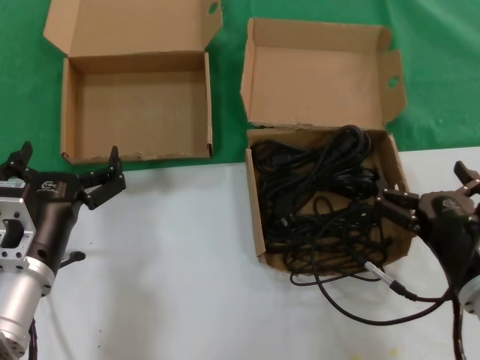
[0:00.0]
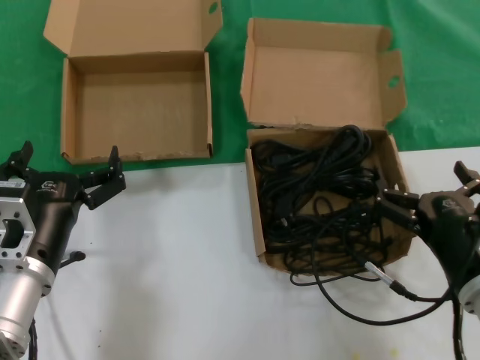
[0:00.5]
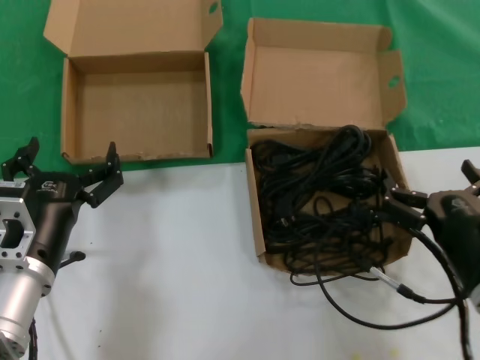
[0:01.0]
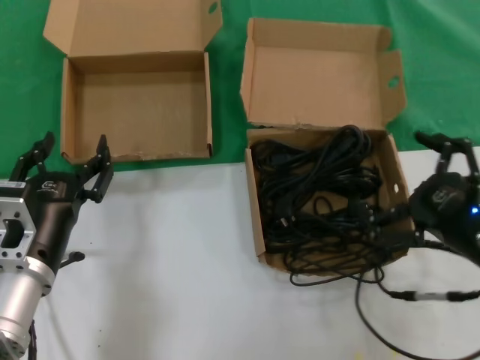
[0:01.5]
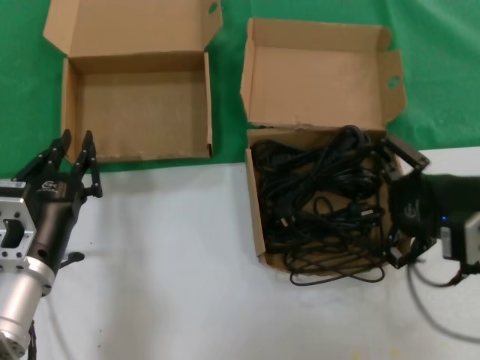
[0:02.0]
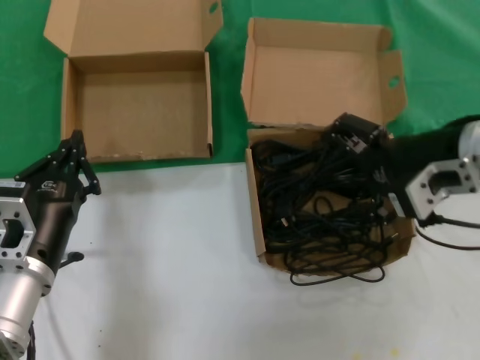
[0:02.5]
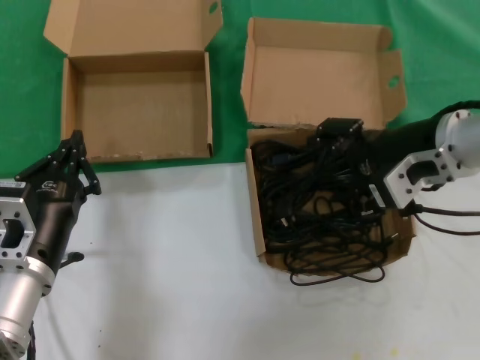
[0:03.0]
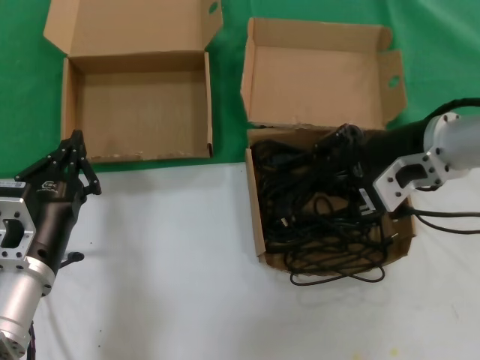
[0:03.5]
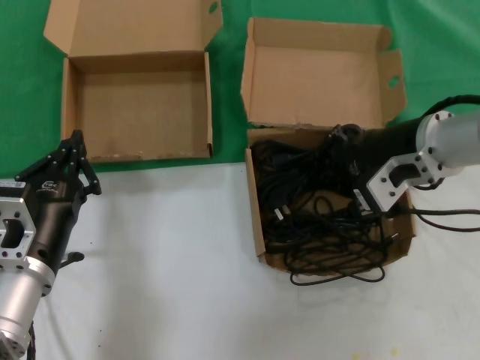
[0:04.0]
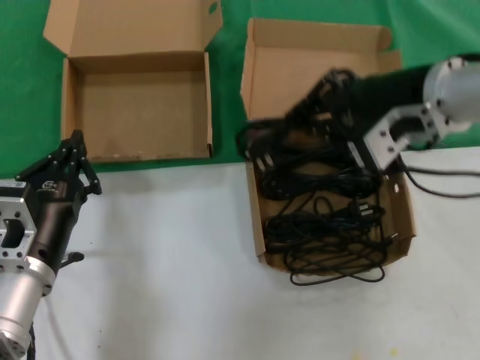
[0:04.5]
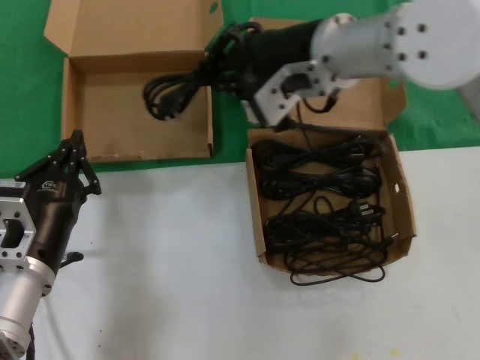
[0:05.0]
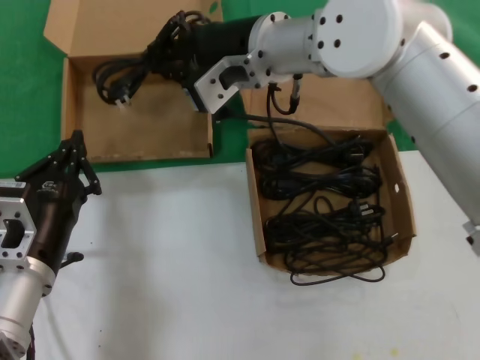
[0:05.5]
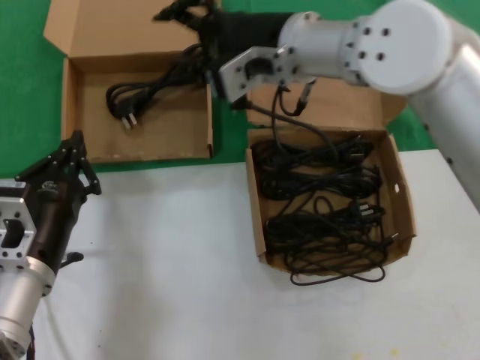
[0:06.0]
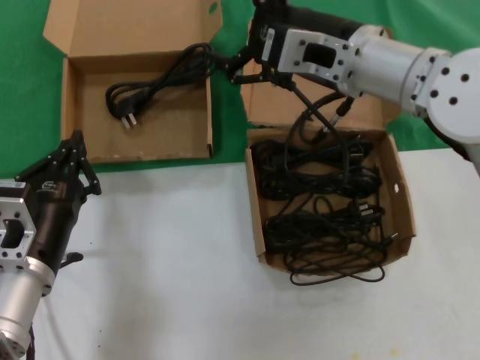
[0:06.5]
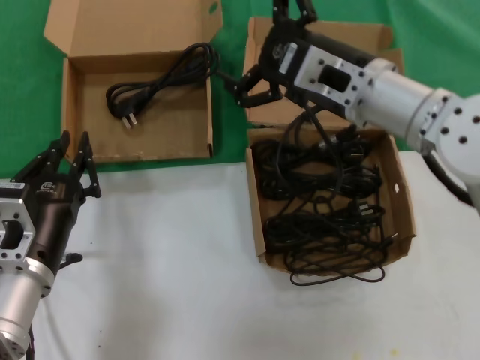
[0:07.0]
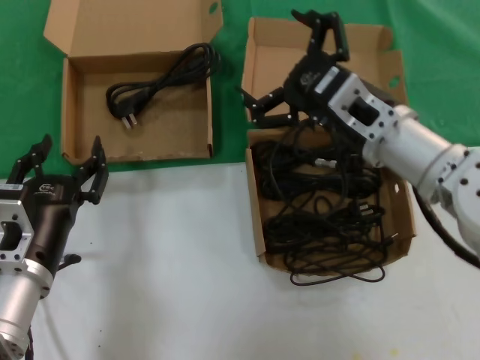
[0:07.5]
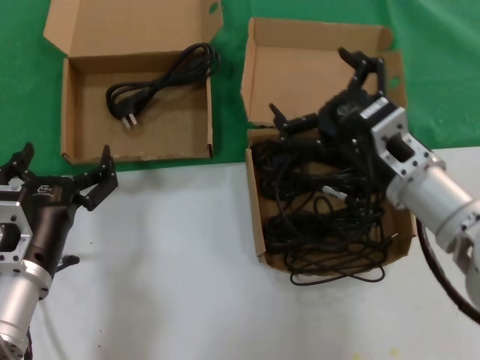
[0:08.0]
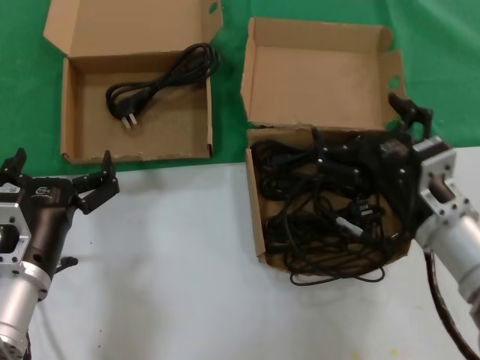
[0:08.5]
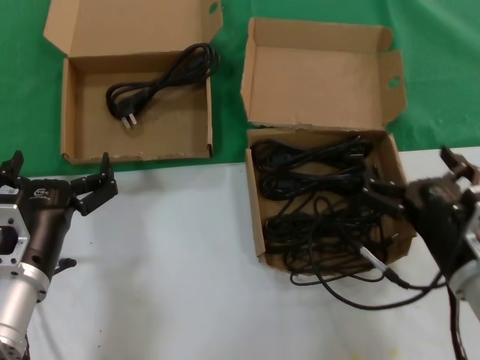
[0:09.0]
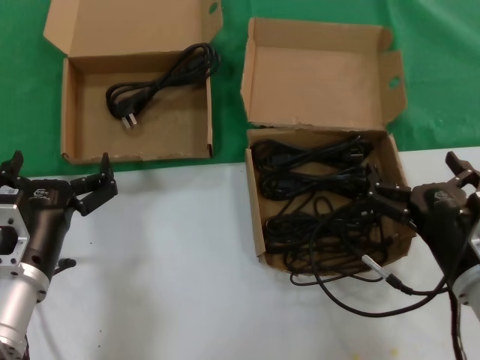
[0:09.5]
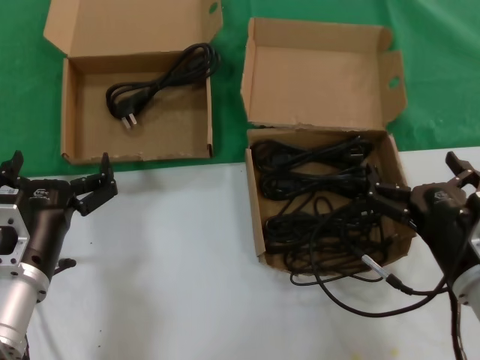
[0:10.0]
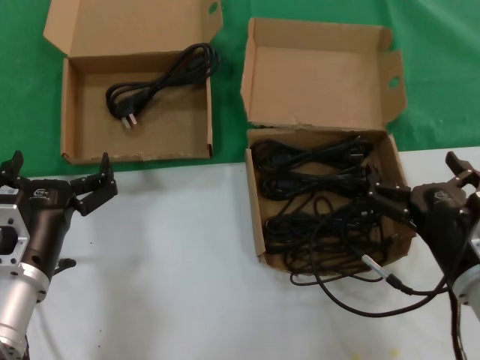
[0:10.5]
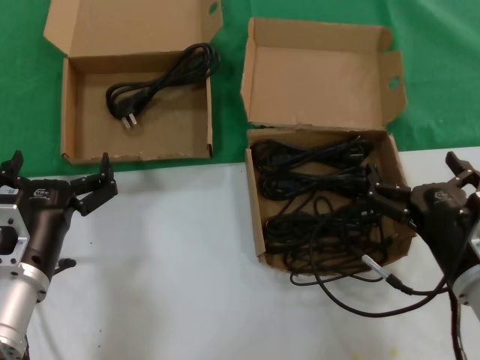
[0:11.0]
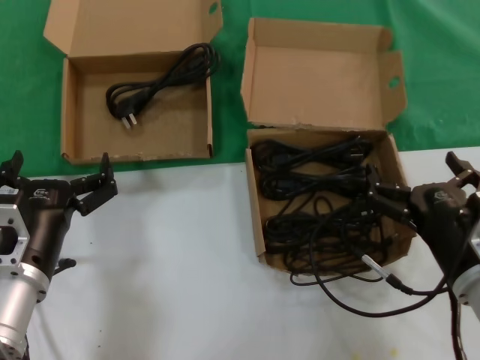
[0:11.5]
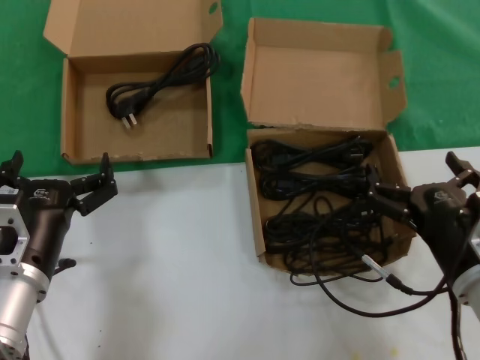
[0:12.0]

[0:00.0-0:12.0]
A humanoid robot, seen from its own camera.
Task of the whole recording: take the parts from the box containing them and put them into an empty box.
Step, 0:00.0 to 0:03.5: Grasp the data cable.
Step, 0:04.0 to 0:05.5: Place the data cable in the another box.
0:00.0 to 0:02.0: The right hand is displaced upward by roughly 15 cm.
0:02.0 to 0:04.0: The right hand shifts roughly 15 cm forward and to the left.
0:04.0 to 0:06.0: The right hand shifts about 15 cm to the left and upward.
0:06.0 to 0:08.0: The right hand goes some 20 cm downward, to the right and backward.
0:08.0 to 0:10.0: The right hand travels backward, downward and to the right by approximately 15 cm.
0:10.0 to 0:12.0: Both hands stay put.

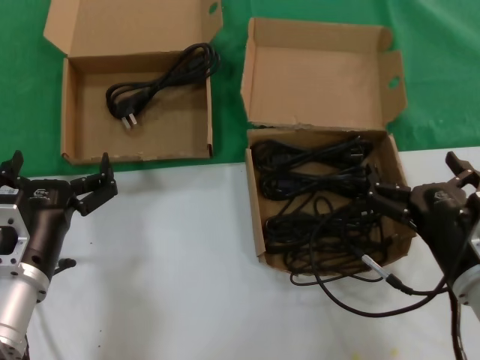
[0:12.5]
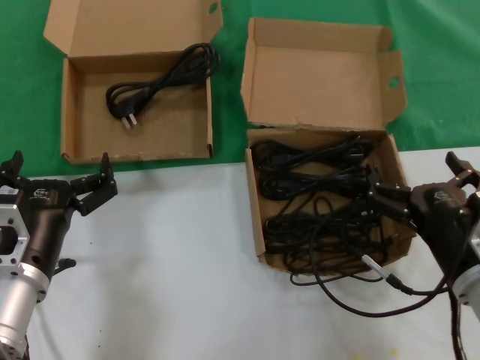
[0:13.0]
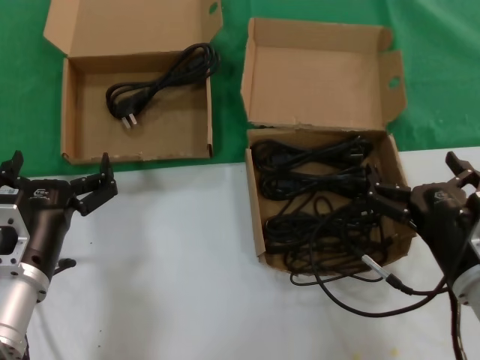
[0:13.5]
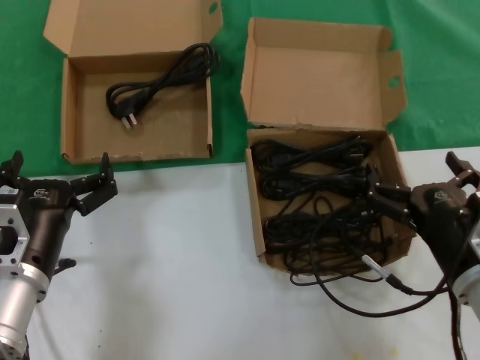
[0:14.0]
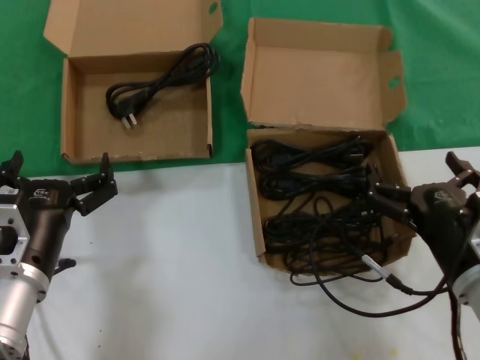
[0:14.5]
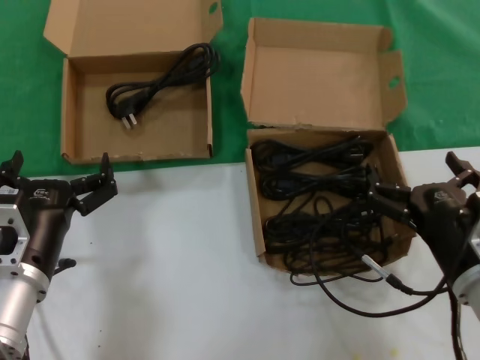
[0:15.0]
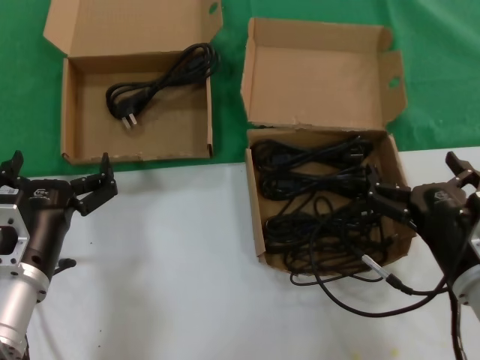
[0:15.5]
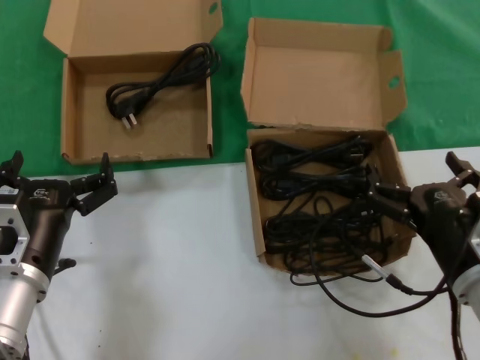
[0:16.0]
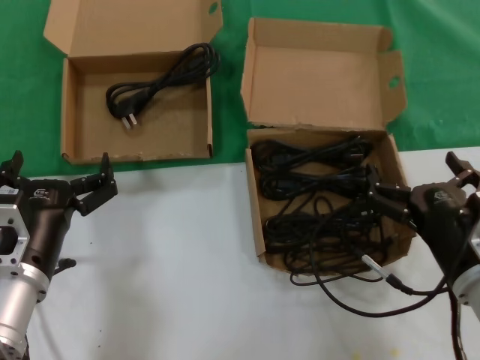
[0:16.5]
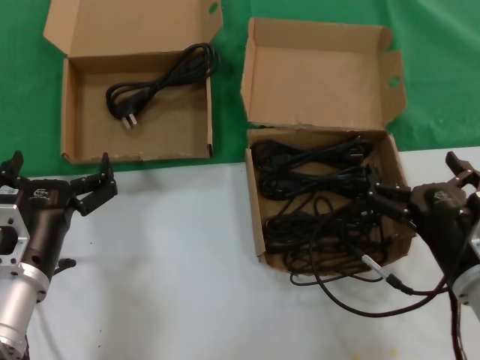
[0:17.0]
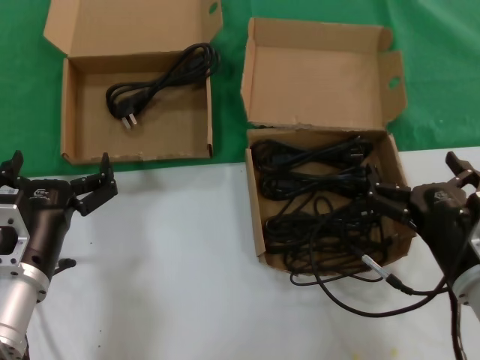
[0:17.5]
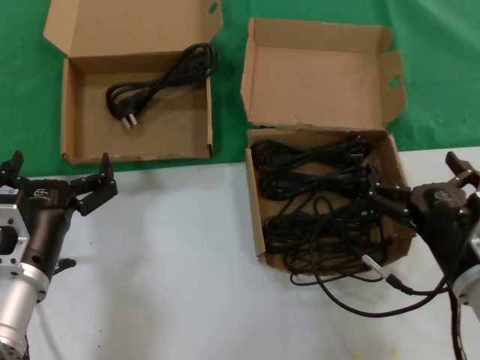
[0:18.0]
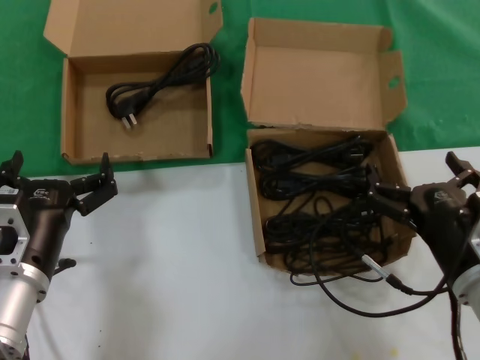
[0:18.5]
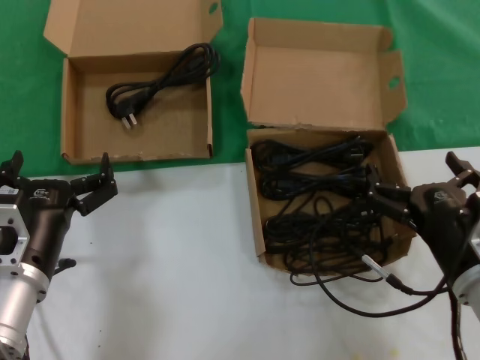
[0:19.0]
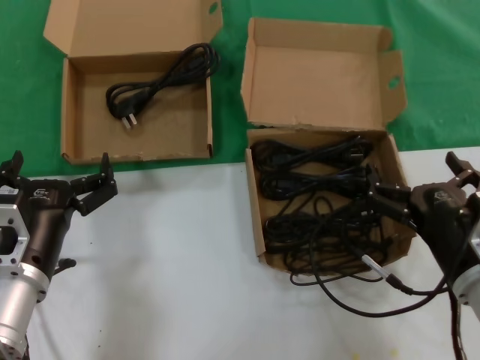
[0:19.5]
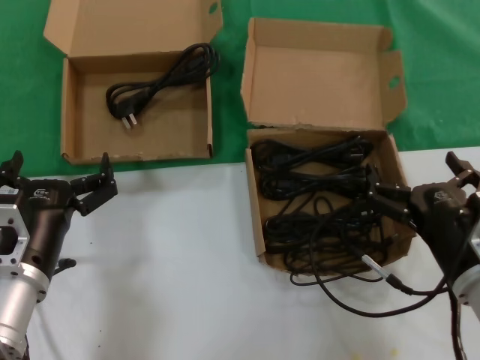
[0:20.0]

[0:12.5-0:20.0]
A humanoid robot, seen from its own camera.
Task of the whole recording: take the parts from the box containing them and put them into an empty box.
0:12.5 to 0:20.0: Both hands stay about where they are.
